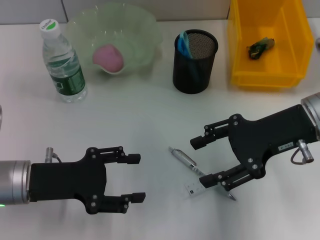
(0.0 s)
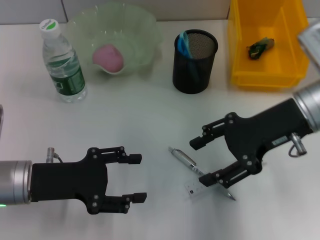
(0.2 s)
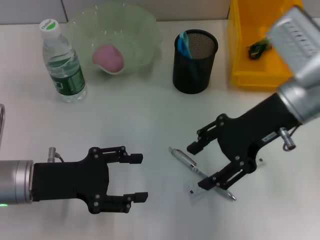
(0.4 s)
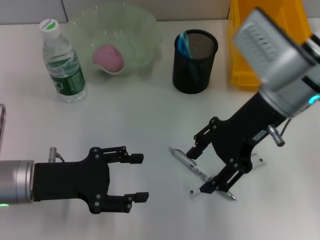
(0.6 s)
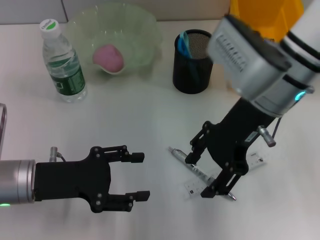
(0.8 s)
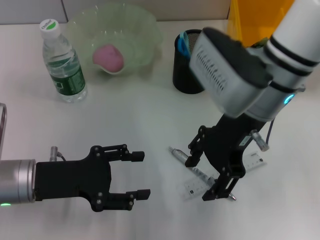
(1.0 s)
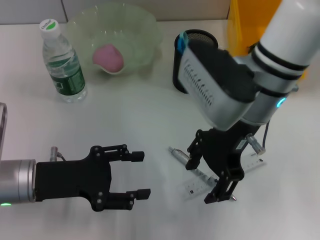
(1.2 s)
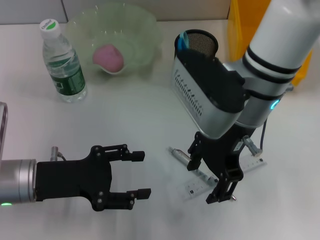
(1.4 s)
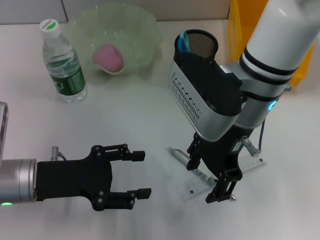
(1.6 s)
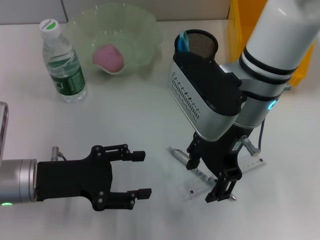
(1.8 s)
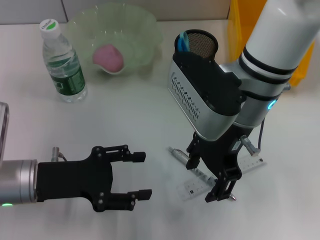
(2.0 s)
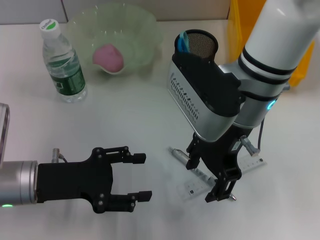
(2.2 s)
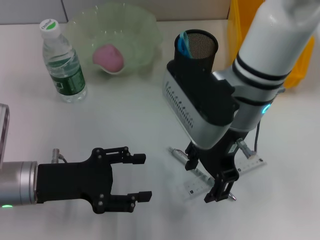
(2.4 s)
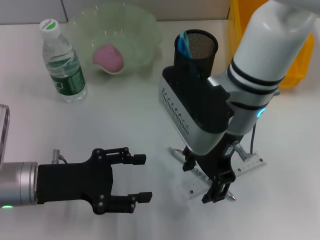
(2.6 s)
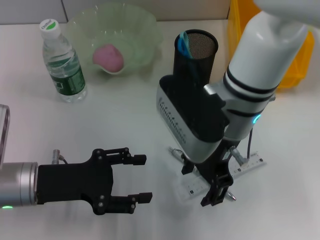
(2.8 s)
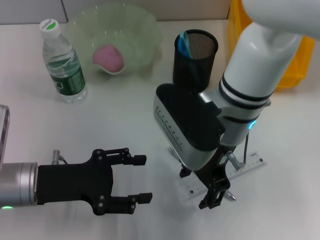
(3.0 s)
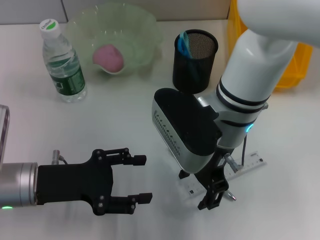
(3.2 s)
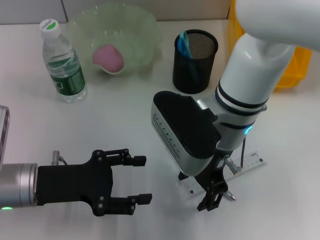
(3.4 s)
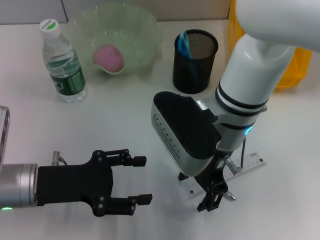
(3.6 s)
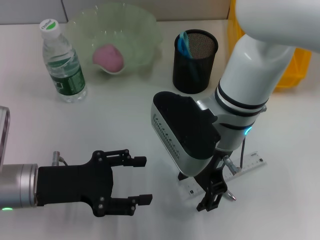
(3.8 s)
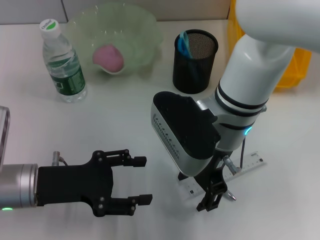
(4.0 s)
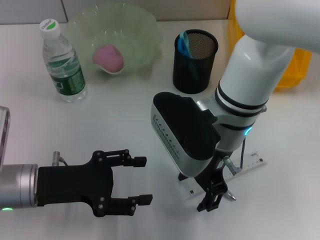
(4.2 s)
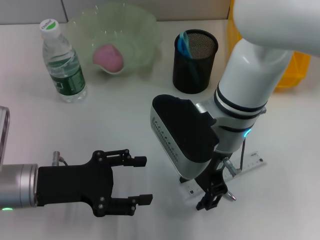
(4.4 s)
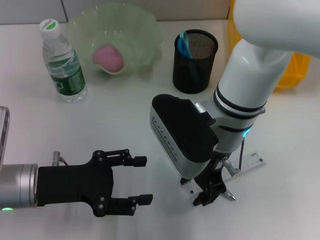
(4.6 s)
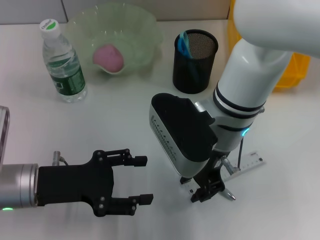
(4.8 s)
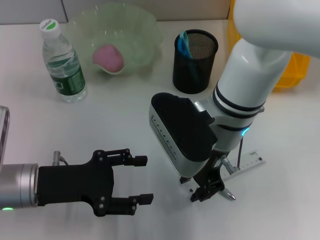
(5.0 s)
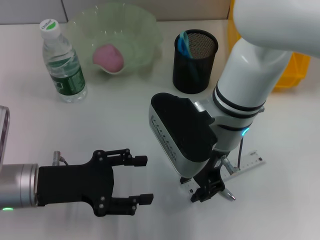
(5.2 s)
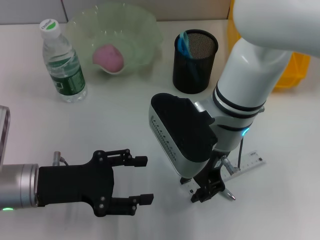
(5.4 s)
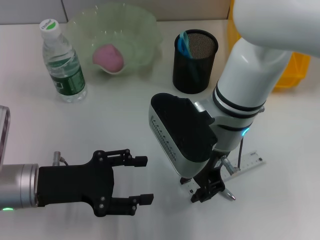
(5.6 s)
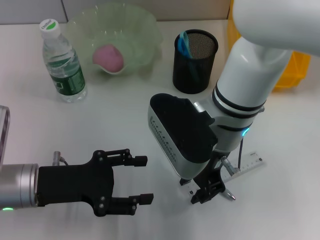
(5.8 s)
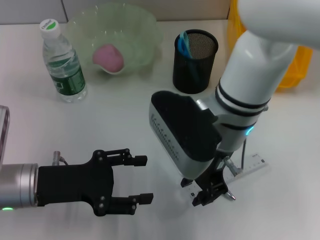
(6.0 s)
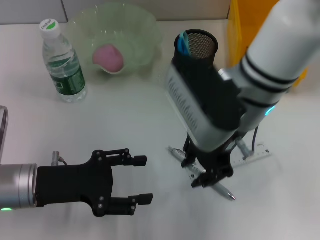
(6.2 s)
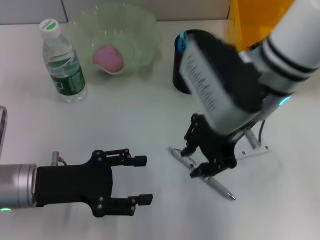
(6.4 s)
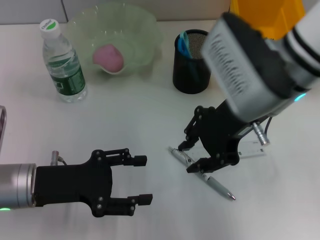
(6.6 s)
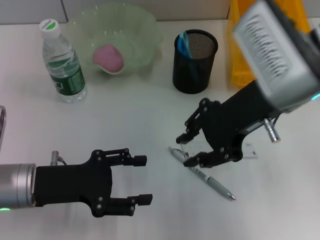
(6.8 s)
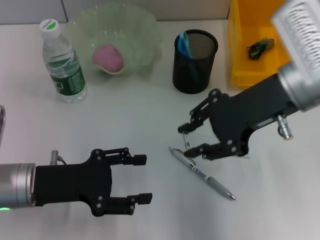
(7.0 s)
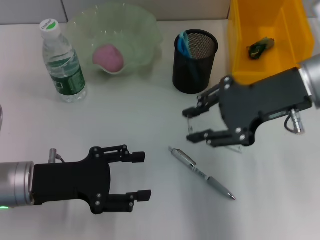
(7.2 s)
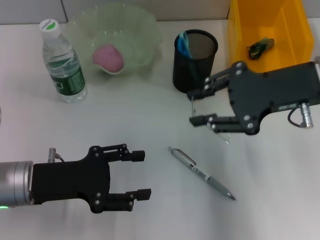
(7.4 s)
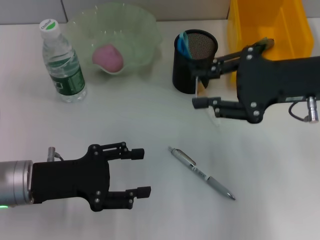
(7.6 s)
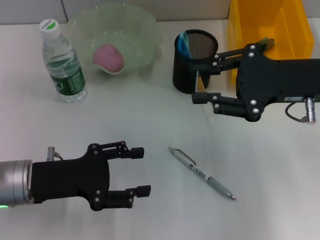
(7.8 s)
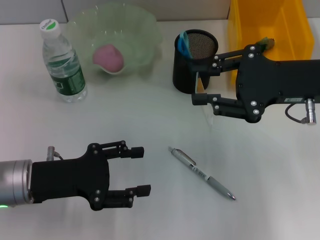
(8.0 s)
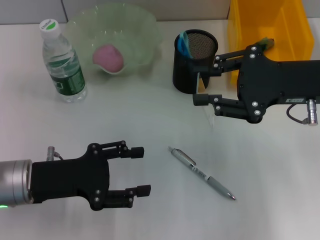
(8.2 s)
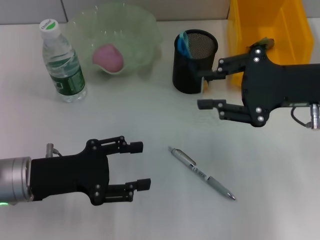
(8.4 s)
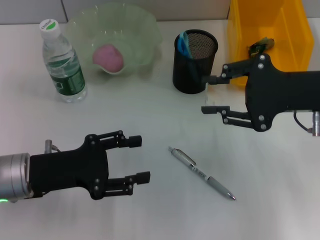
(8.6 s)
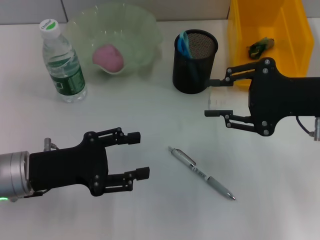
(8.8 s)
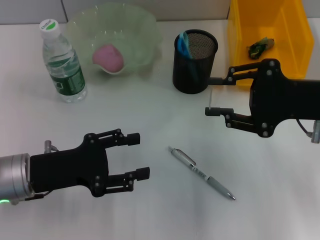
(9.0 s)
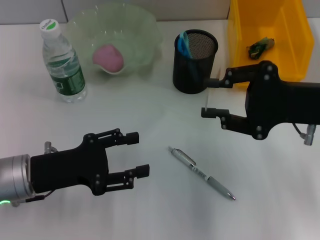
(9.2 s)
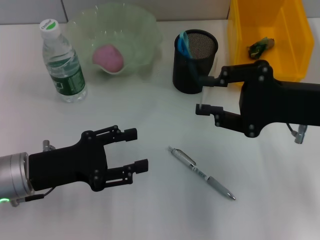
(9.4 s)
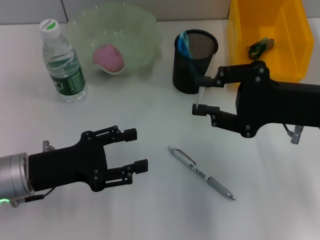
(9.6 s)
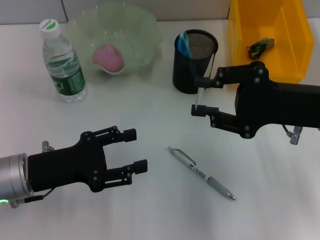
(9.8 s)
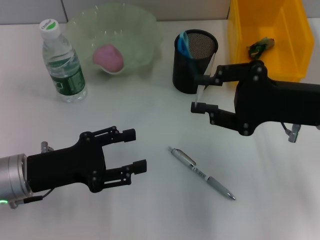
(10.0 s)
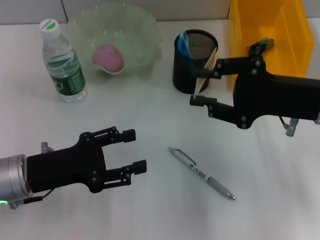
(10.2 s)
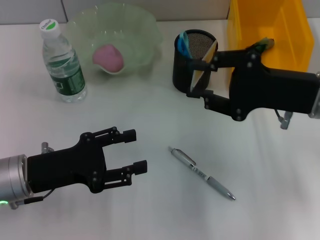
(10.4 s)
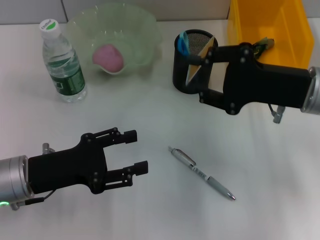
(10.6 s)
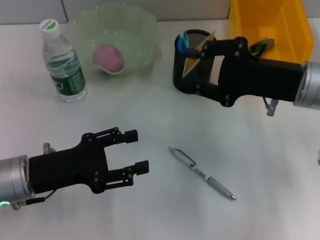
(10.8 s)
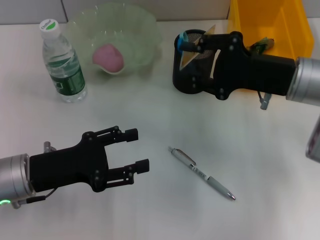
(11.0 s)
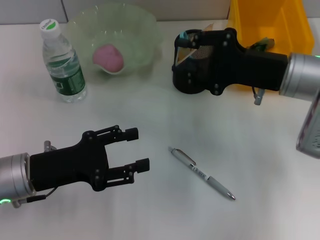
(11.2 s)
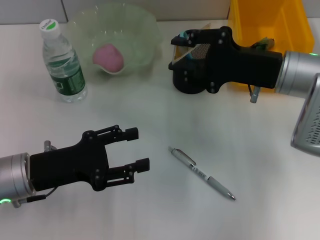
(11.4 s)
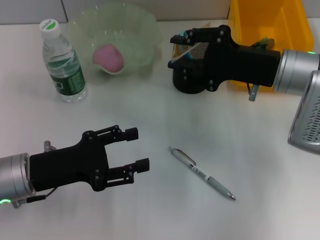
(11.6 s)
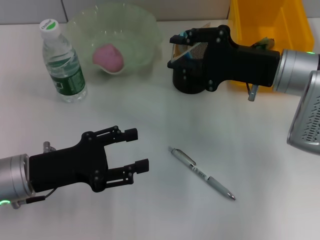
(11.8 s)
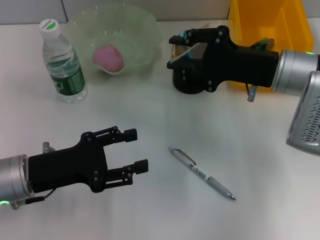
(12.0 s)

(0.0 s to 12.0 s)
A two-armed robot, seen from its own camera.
Step, 0.0 s - 5.0 s: Grab the ruler with the right hand.
0.0 s - 1.6 s: The right gripper heads to the left, covering about 15 cm.
3.0 s - 4.4 s: Both grippers stay put.
4.4 s - 6.0 s: The grippers stay close to where they were, moving slightly.
6.0 s - 7.6 s: The right gripper goes about 15 cm to the right.
9.0 s - 10.4 s: There are only small adjustments of the grippers.
10.4 s - 12.0 s: The right gripper changes place by approximately 5 cm.

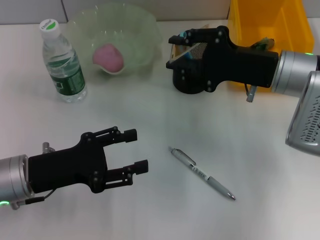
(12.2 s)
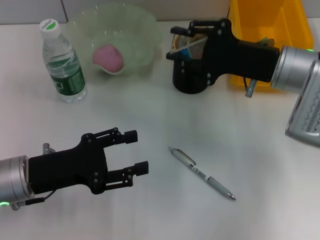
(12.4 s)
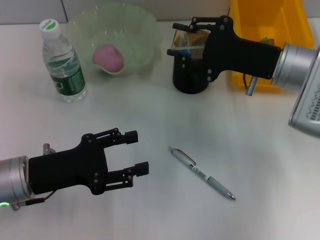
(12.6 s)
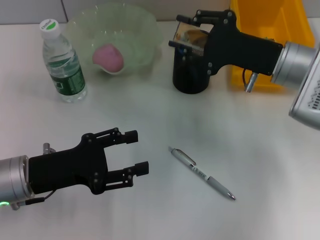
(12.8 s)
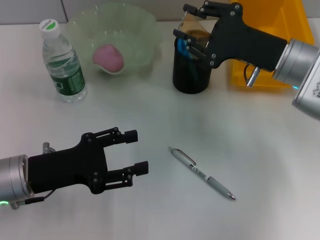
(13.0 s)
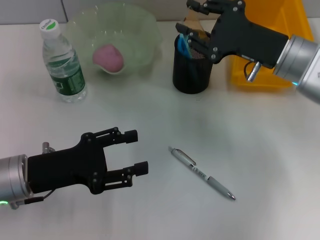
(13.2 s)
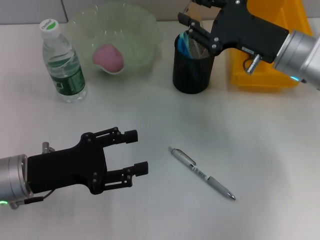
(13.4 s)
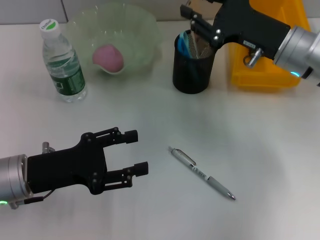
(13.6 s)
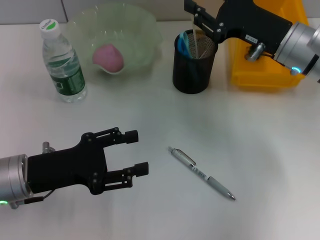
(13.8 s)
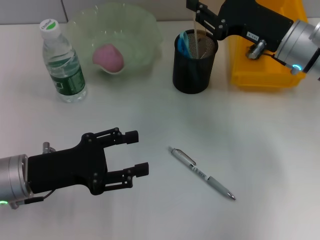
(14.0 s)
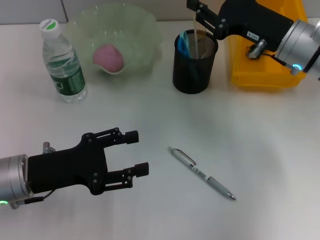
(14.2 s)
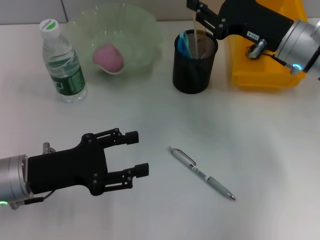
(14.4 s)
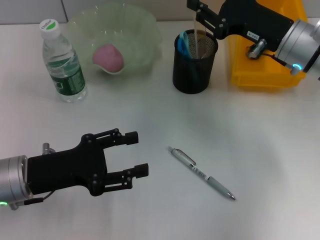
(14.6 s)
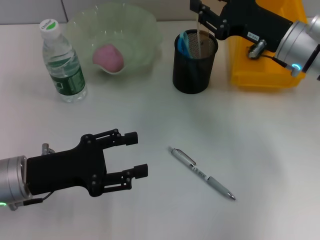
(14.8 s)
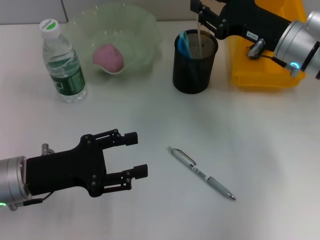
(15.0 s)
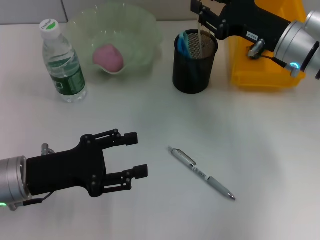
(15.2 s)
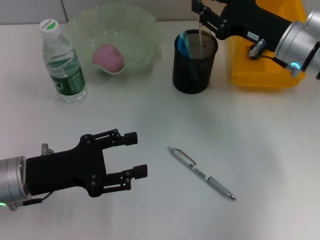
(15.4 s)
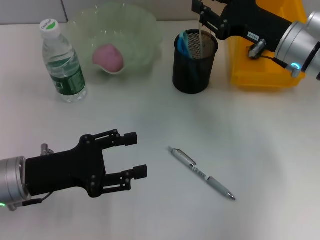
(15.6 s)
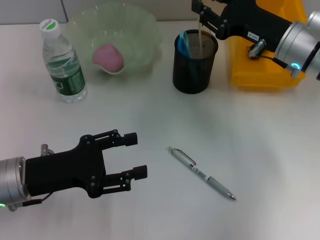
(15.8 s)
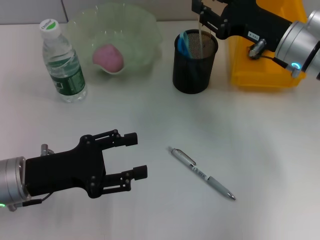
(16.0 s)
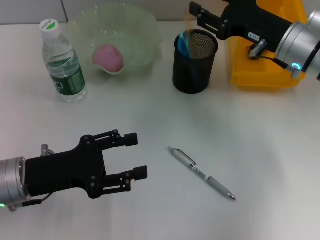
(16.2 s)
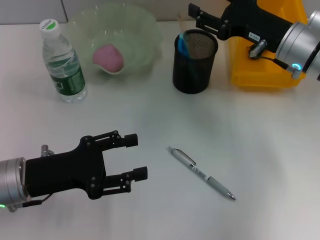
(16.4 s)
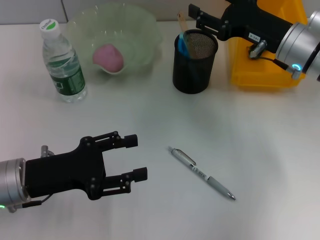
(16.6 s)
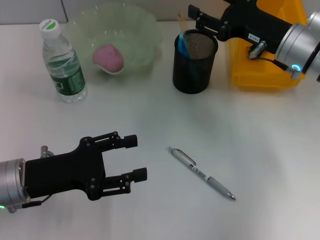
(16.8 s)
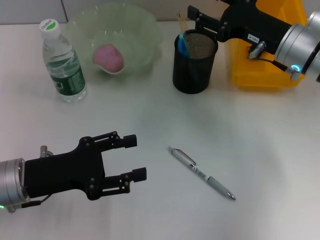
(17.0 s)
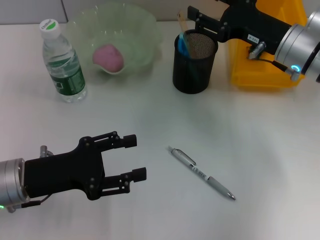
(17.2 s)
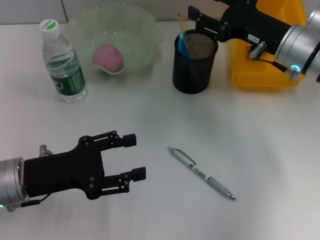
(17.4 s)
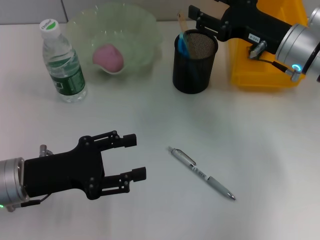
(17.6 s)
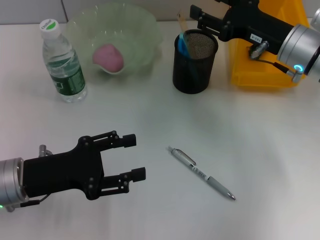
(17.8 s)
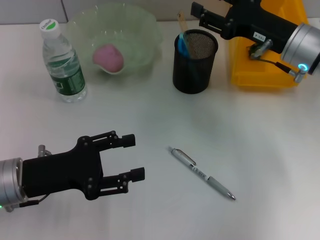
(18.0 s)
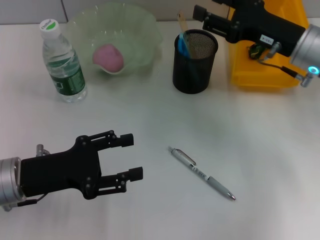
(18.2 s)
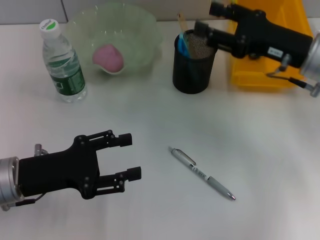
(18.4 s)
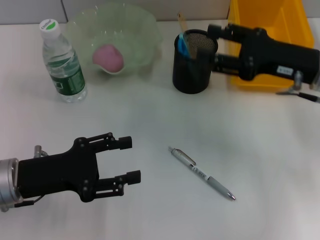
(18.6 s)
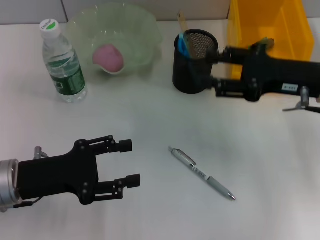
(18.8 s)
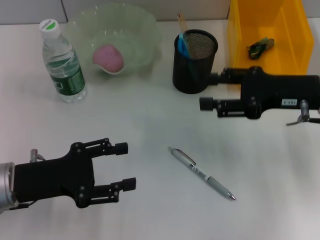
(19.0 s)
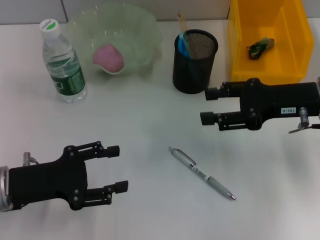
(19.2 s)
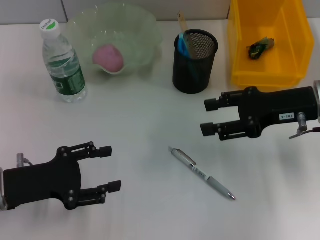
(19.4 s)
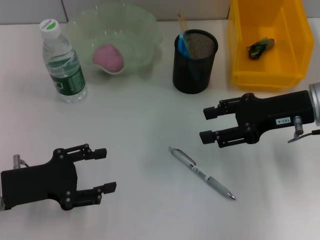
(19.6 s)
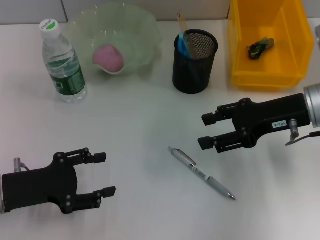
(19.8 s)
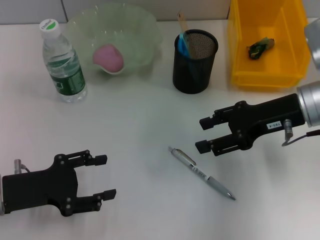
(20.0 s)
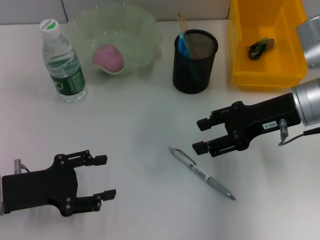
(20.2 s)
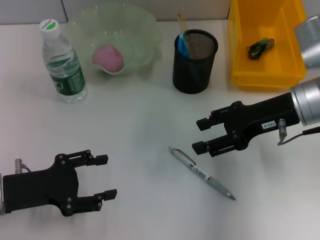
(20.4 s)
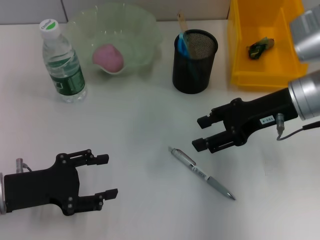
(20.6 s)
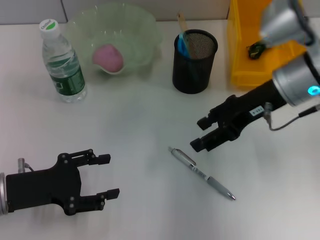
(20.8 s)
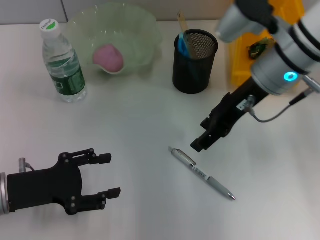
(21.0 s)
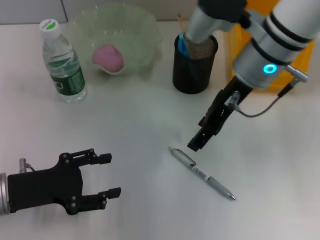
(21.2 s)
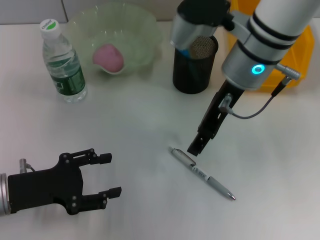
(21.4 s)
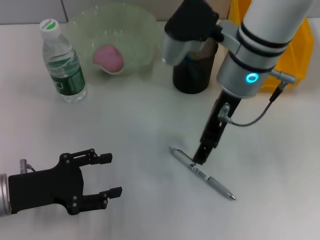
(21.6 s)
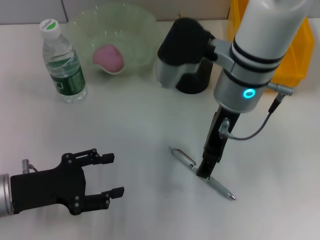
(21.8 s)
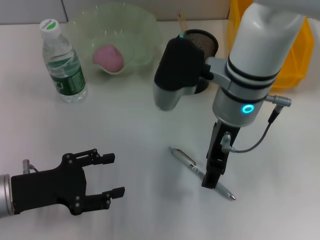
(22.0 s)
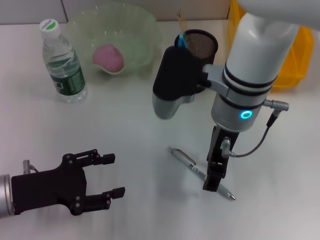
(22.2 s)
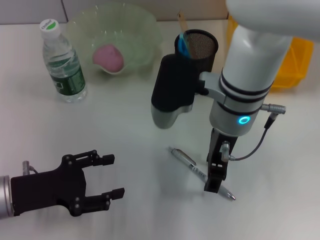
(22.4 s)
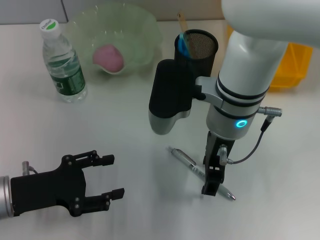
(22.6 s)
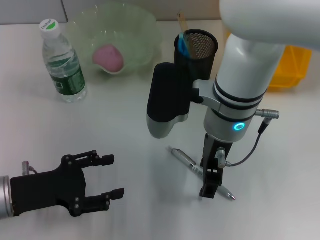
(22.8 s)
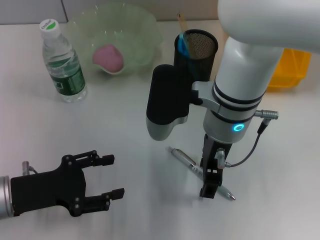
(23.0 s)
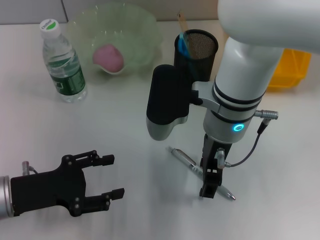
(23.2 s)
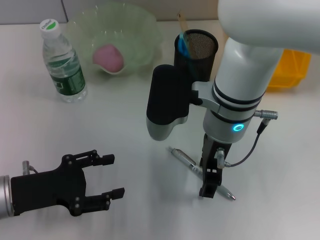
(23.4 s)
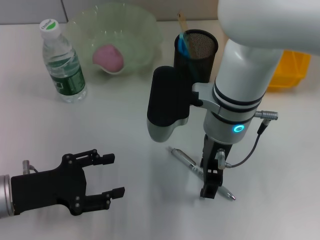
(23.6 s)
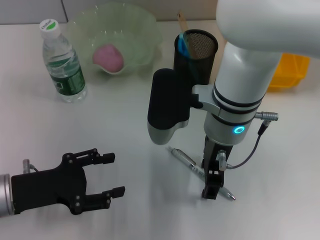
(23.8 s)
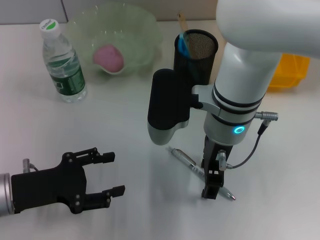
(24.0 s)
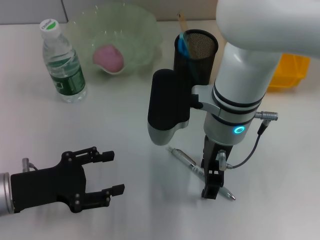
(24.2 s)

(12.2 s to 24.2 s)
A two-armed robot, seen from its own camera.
Step, 12.2 s - 16.4 s: Place the ruler into the pen holder with the right hand.
13.8 s - 15.2 s: The grippers make only small movements.
15.2 s - 16.6 s: Both grippers stay about where they are.
16.6 s - 18.2 s: There are only small adjustments of the grippers.
19.8 s - 21.2 s: The right gripper heads to the left and upward, covering roughly 15 cm.
21.2 s - 22.6 s: The right gripper goes approximately 5 cm backward and to the left.
22.6 s - 24.2 s: Neither gripper changes place.
